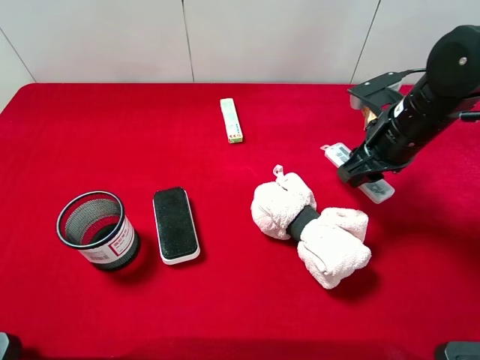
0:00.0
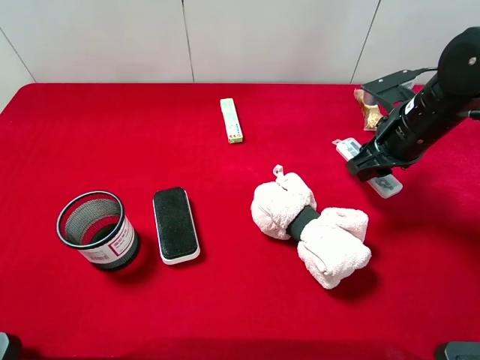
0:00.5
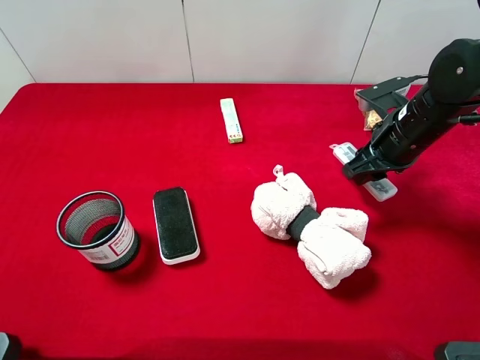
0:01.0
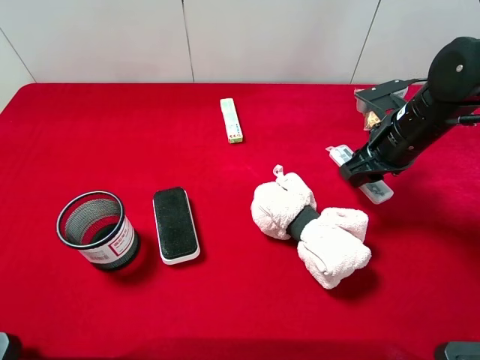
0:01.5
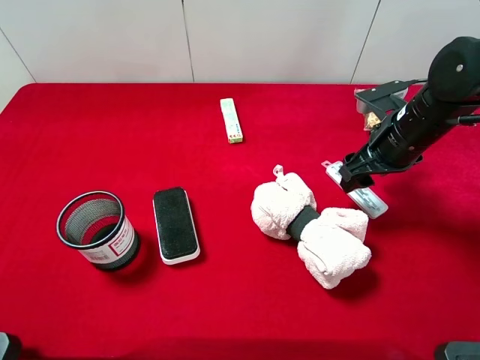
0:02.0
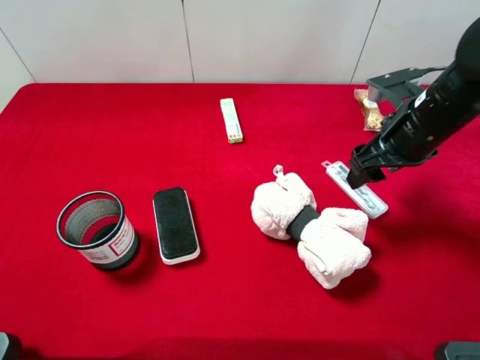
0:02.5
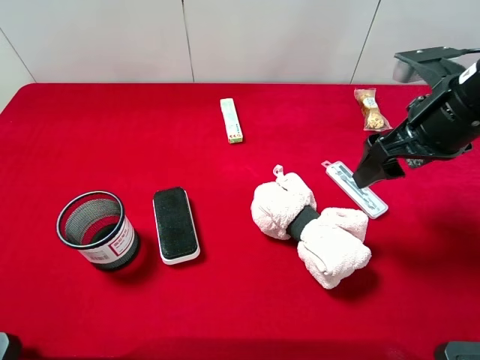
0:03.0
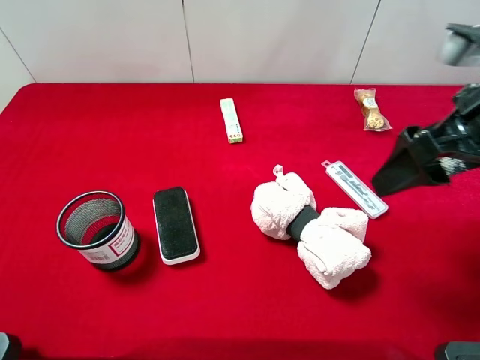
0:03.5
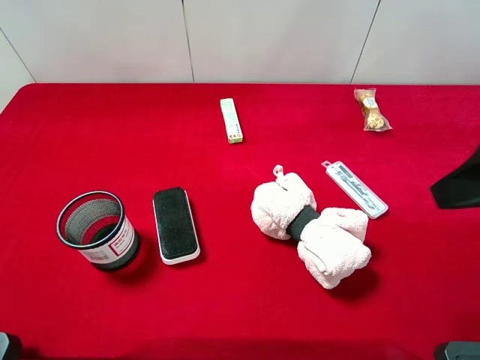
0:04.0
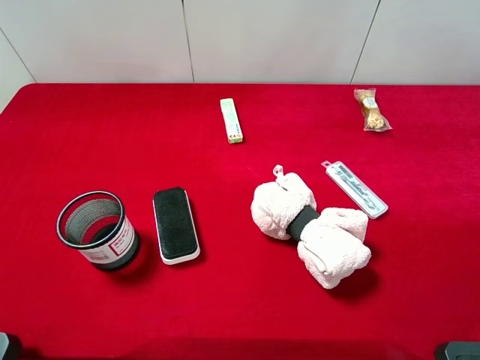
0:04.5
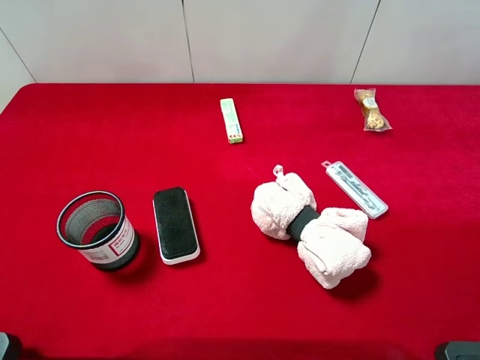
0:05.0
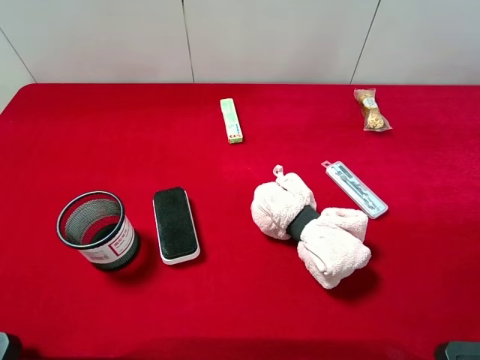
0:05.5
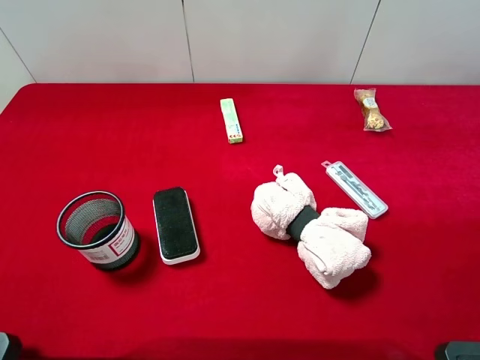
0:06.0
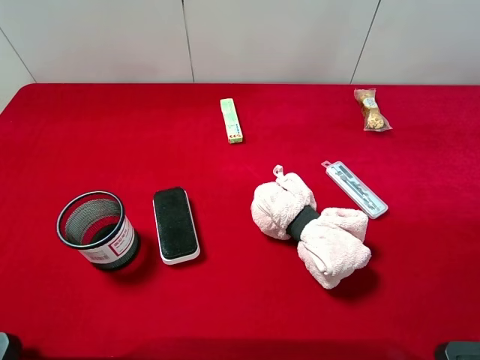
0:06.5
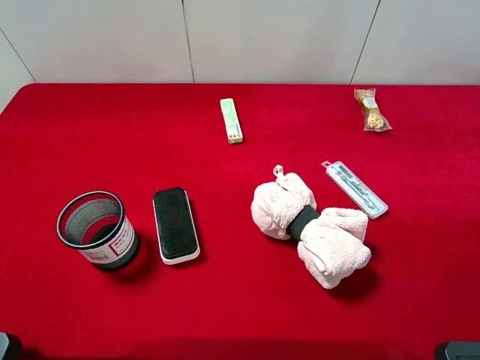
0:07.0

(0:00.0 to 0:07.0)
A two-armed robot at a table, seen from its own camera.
Task of the whole recording: the gripper move the object.
Step, 0:00.0 - 0:02.5: Place the compasses on the table with the right gripper.
0:00.0 - 0:02.0: The right gripper opens.
0:02.0 - 0:03.5: The right gripper is displaced upward and backward by about 15 cm, and opens up.
0:03.5 - 0:05.0: The right gripper goes approximately 20 cm backward, upward and to the right.
